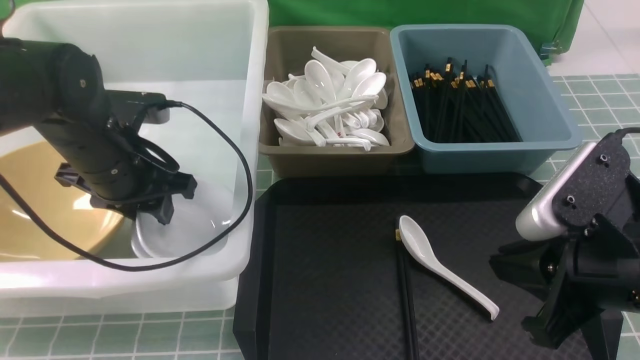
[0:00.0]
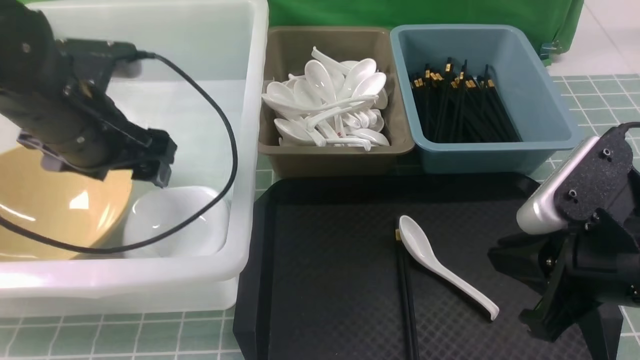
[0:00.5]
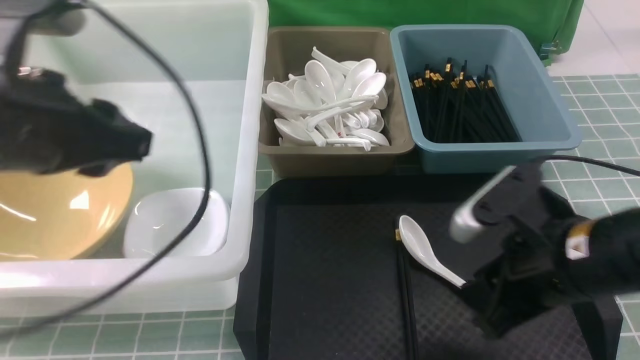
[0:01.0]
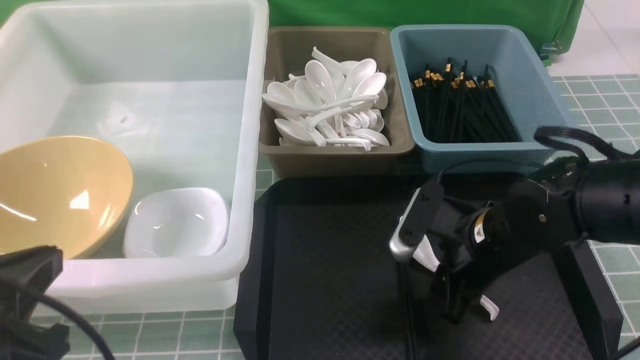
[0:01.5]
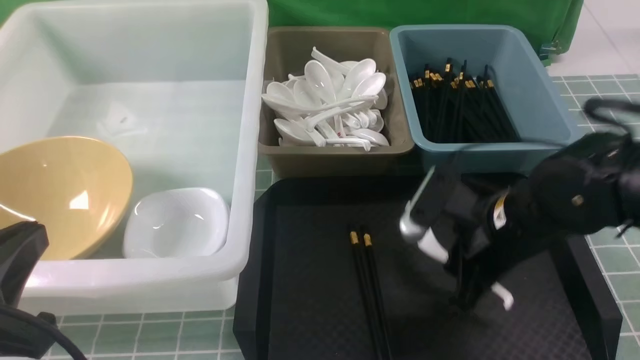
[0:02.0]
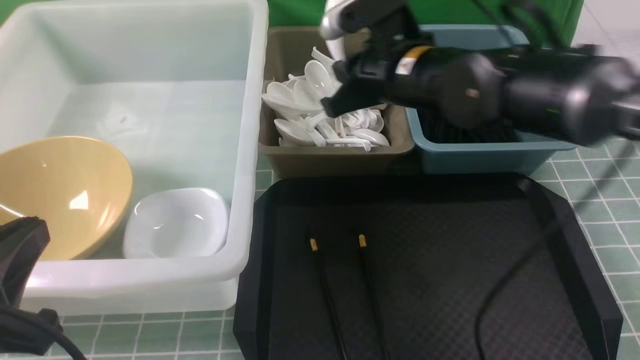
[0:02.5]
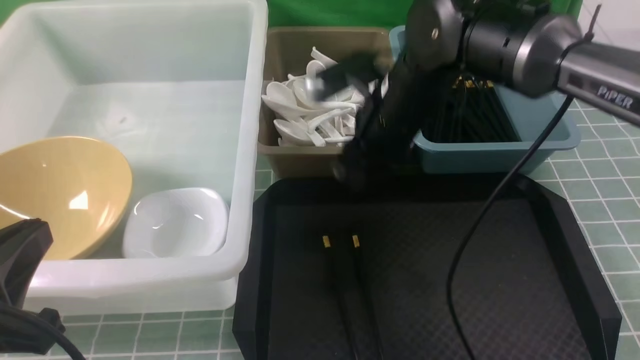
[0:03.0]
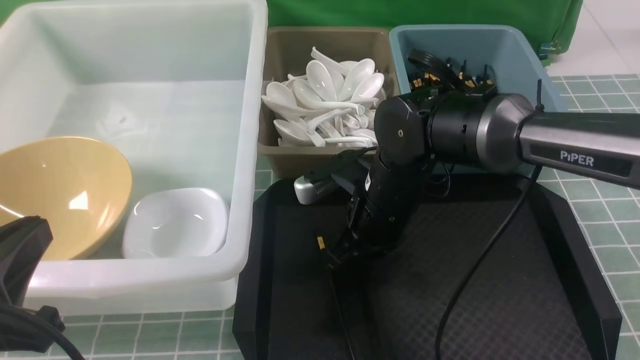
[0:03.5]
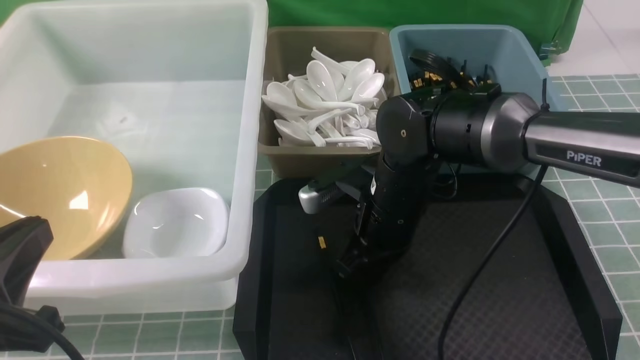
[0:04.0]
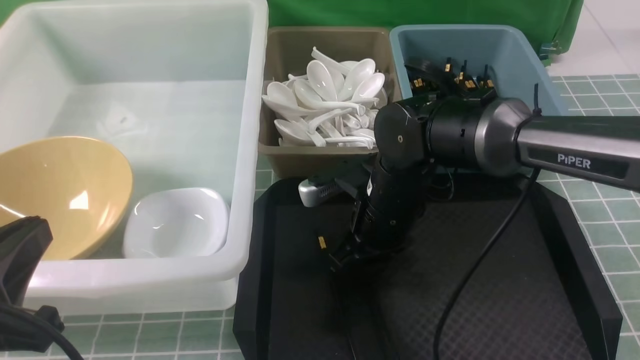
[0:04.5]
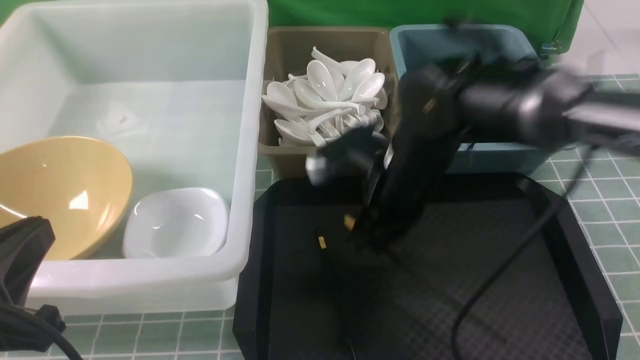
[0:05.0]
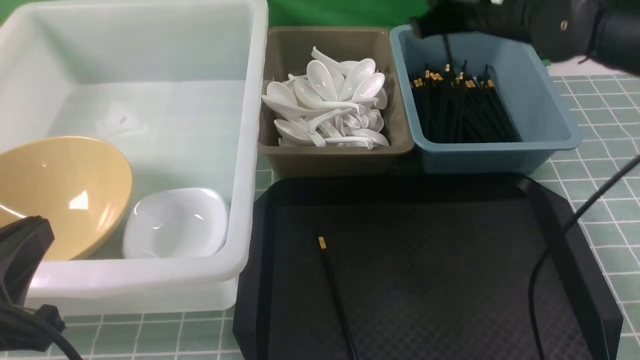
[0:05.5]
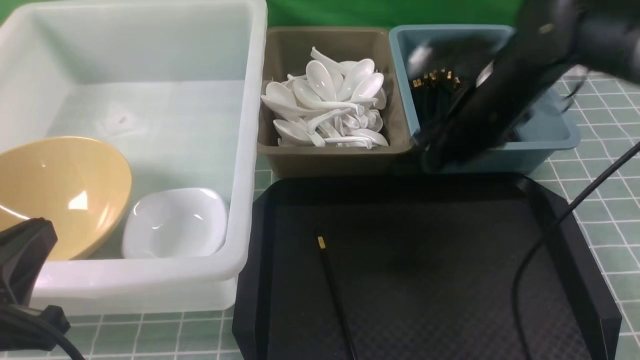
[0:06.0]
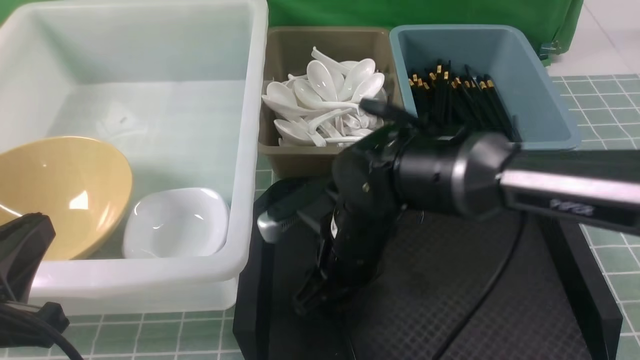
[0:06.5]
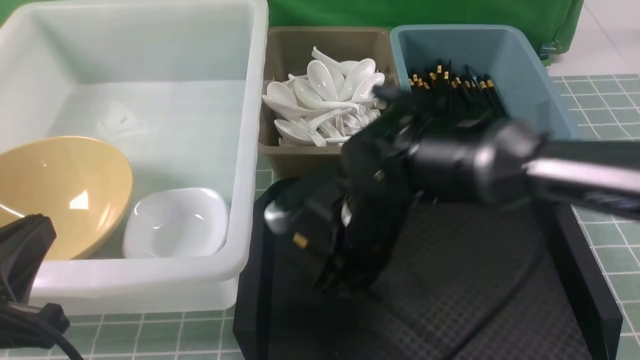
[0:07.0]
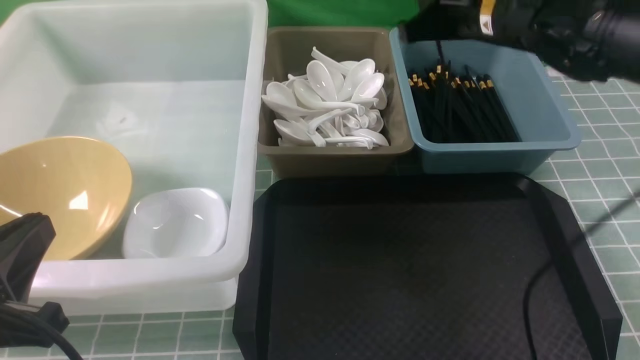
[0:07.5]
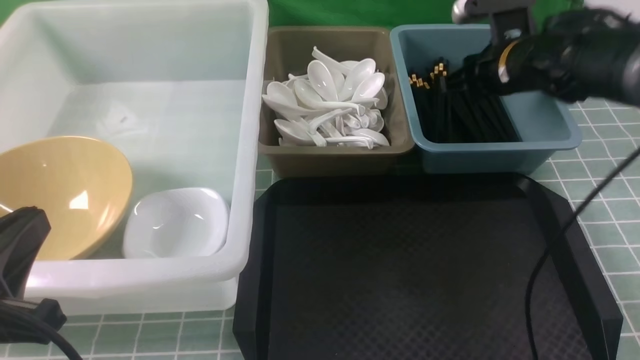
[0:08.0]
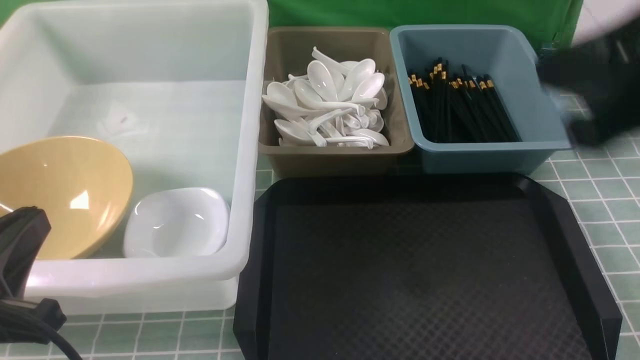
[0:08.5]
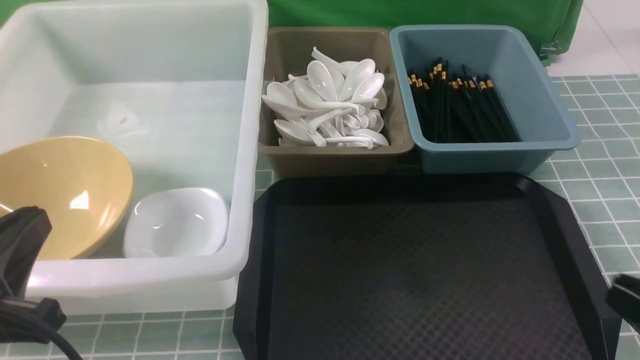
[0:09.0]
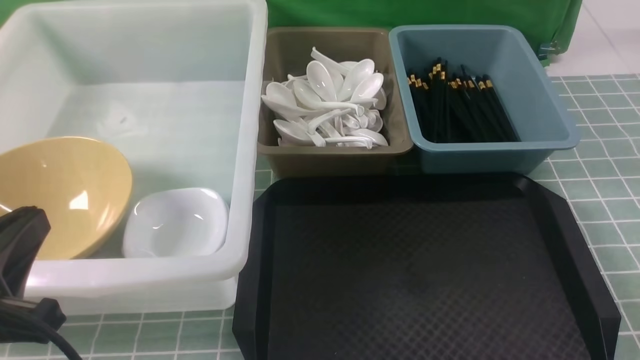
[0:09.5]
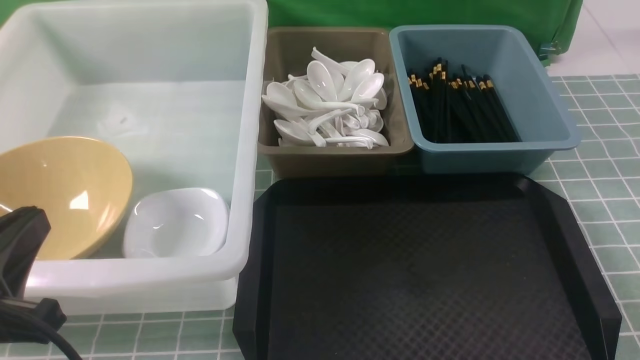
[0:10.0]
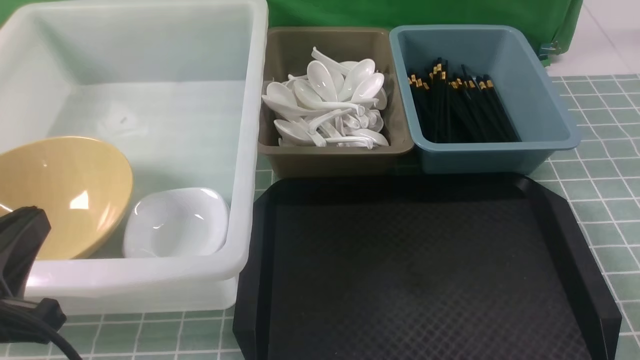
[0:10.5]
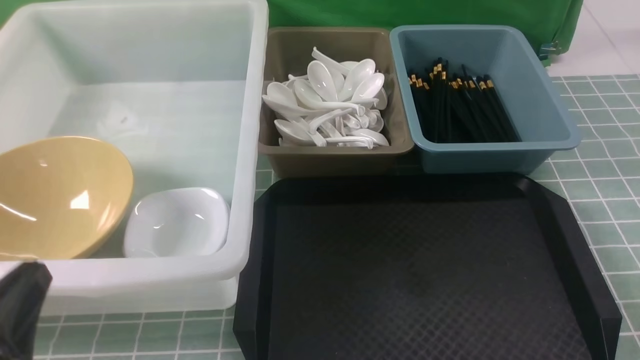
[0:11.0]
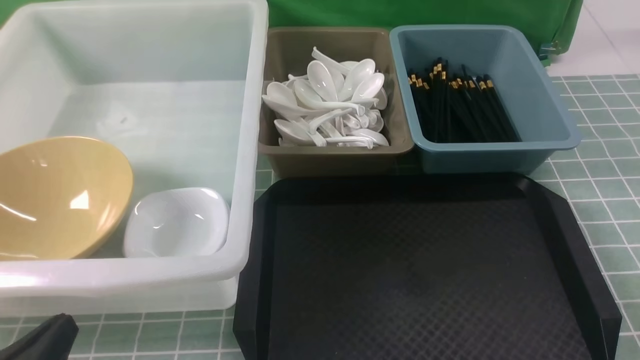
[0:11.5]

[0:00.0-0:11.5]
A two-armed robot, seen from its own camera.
Task of the whole recording: on blue table put chopsticks spoon bowls plates into blue grey white boxes.
Step, 0:00.0 to 0:02.0: use the right arm to grab the soup spoon in the middle.
Step, 0:02.5 to 0:03.0: use the right arm to put the soup spoon into the small storage box in the middle.
Step, 0:03.5 to 0:05.0: use the right arm to grab a chopstick.
Step, 0:06.5 to 0:07.0: use the right arm to grab a chopstick.
0:00.0 to 0:02.0: The left gripper shifts roughly 25 cm backward, and closes its fingers. The right gripper heads forward, to the left and downward, covering approximately 15 cm, and opens, then closes once more.
0:02.0 to 0:04.0: The right gripper moves to the left, approximately 10 cm, and opens and closes again.
0:04.0 to 0:06.0: The right gripper travels to the right and upward by roughly 10 cm, and opens up.
0:06.0 to 0:07.5: The right gripper heads upward, covering approximately 5 cm, goes to the left and returns, some 10 cm each way, and closes up.
0:07.5 to 0:09.5: The right gripper is displaced backward and to the right by some 40 cm.
0:09.5 to 0:11.5: The left gripper moves downward, about 10 cm.

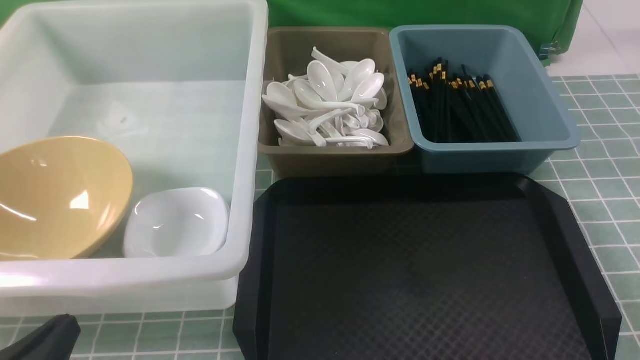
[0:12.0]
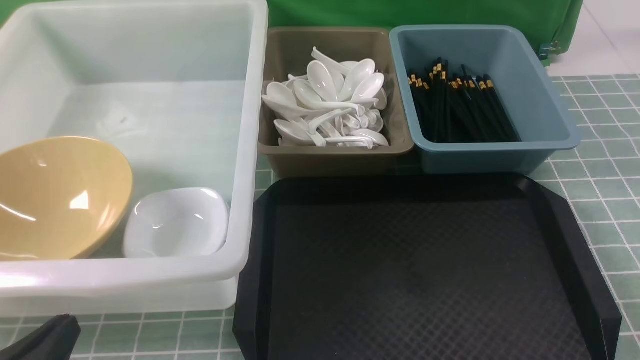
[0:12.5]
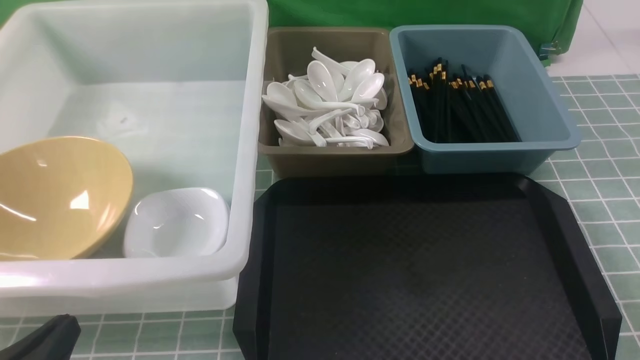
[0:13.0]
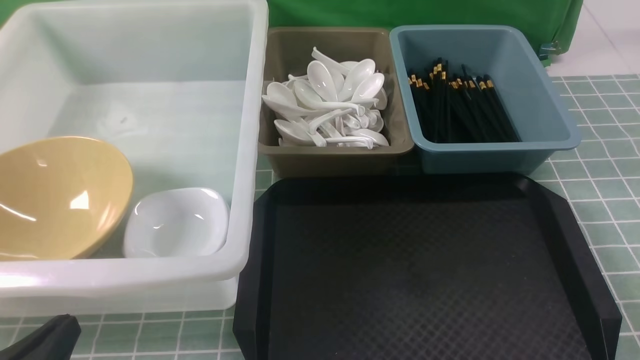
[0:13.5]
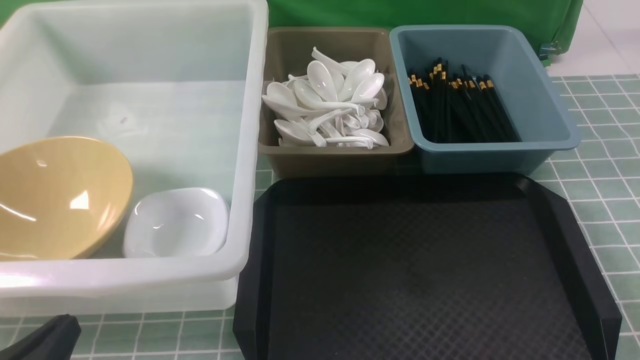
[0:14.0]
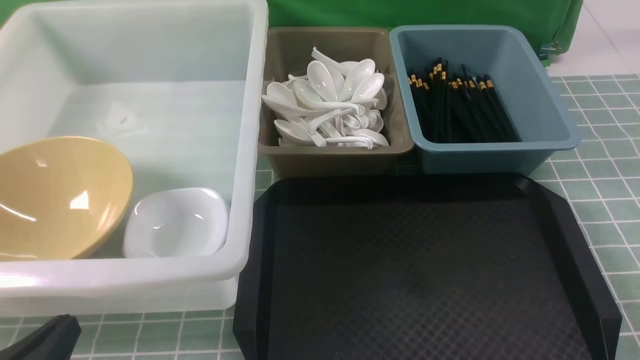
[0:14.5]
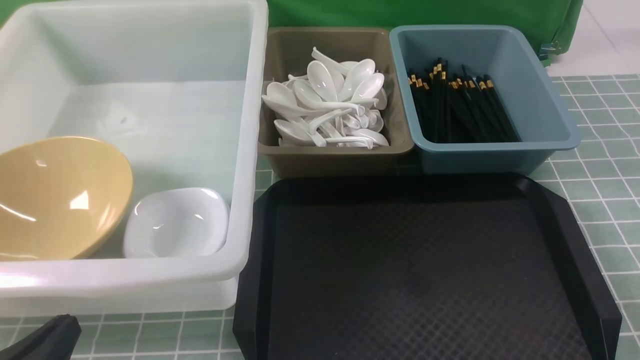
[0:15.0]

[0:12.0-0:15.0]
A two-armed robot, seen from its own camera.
Task of the whole recording: on blue table put chopsticks spoon bowls plates into blue grey white boxes.
0:12.0 to 0:15.0: Both grippers stay put.
